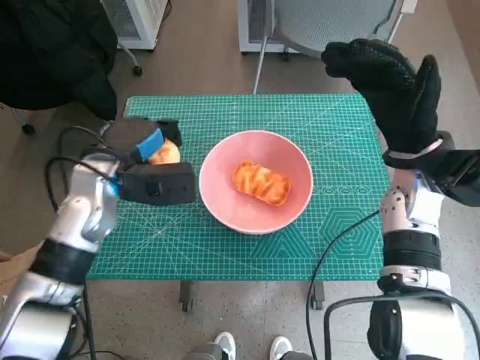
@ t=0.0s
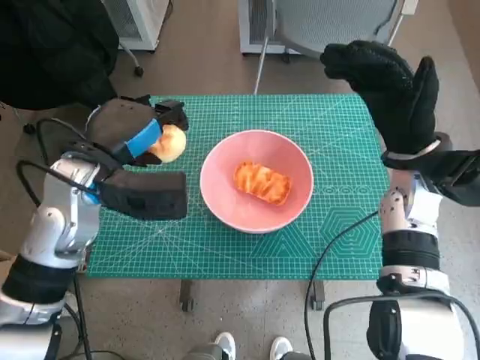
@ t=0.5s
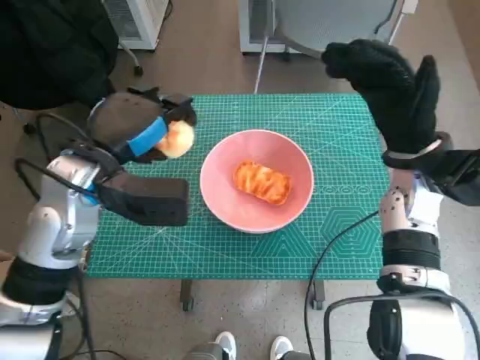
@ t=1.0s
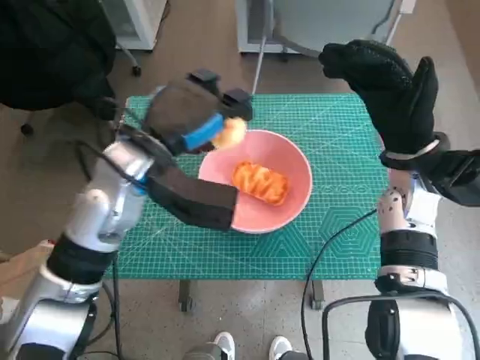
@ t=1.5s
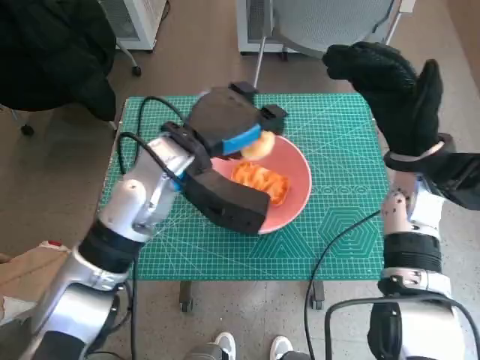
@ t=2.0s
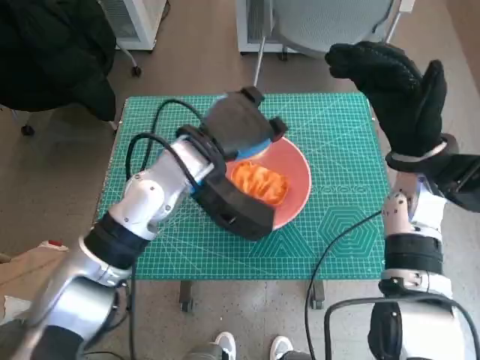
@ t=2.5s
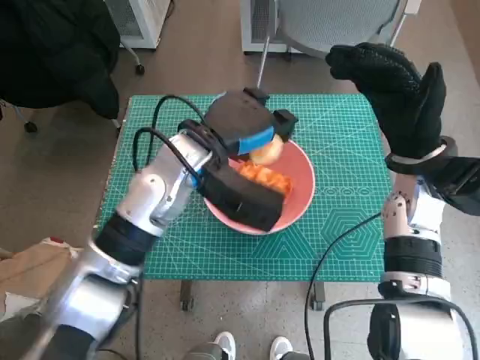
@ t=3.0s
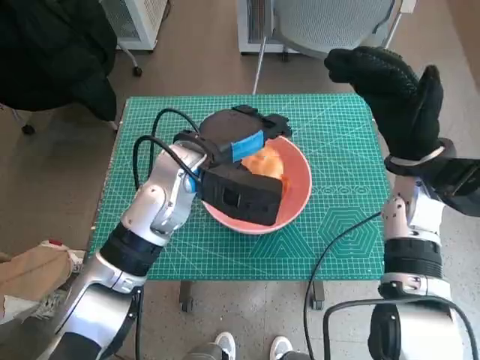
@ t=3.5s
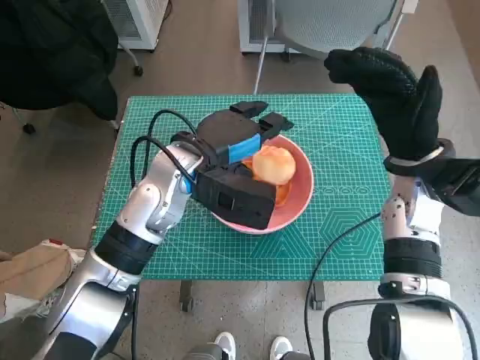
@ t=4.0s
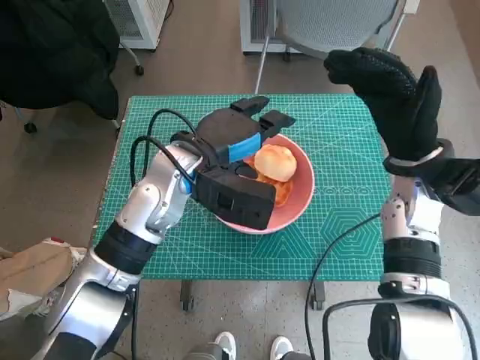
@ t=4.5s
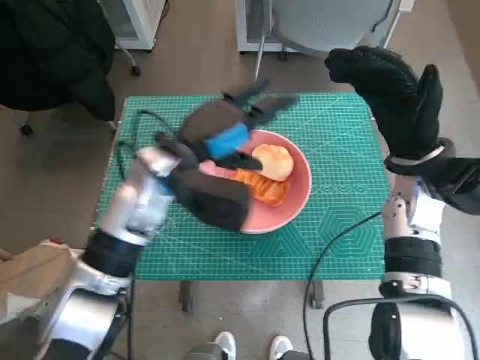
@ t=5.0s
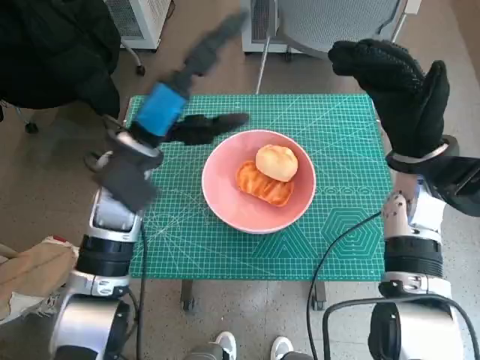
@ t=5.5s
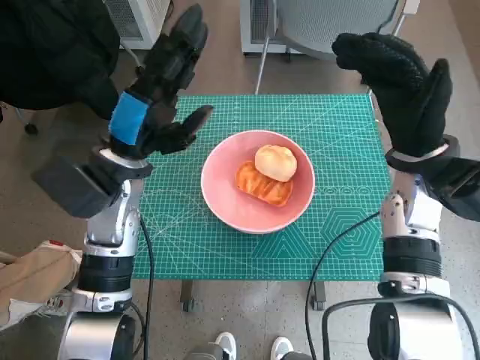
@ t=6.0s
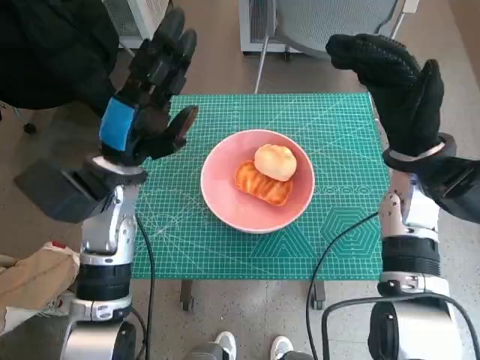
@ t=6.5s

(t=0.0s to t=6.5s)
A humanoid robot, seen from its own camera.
Step, t=0.0s - t=4.5s: Place the round bread in pink bowl with left hand.
t=0.0s - t=2.0s: The left hand shifts approximately 10 cm to the right and upward.
t=4.5s - t=6.5s: The left hand is displaced to the left by roughly 10 cm.

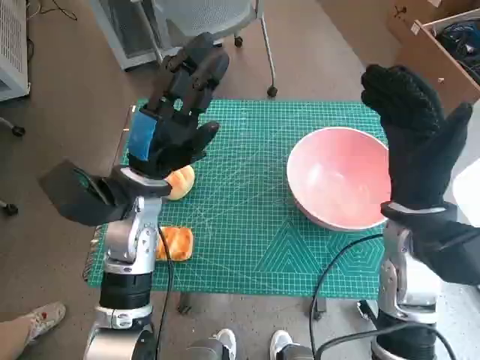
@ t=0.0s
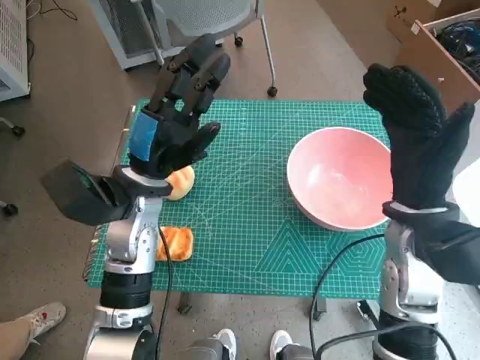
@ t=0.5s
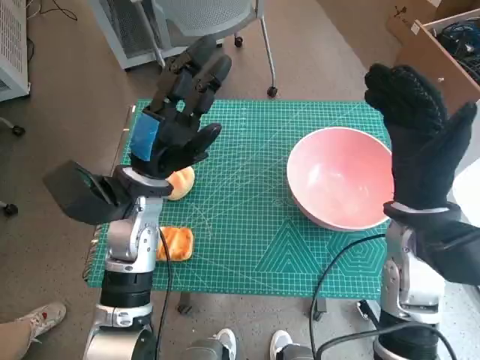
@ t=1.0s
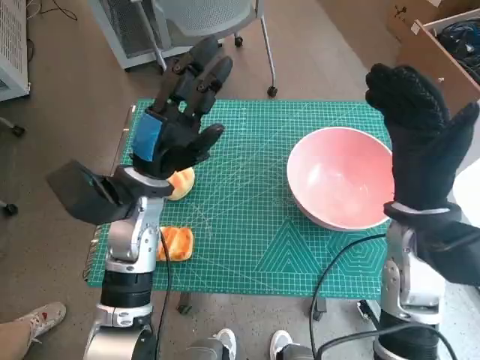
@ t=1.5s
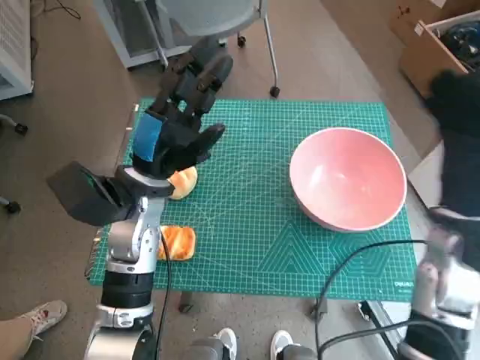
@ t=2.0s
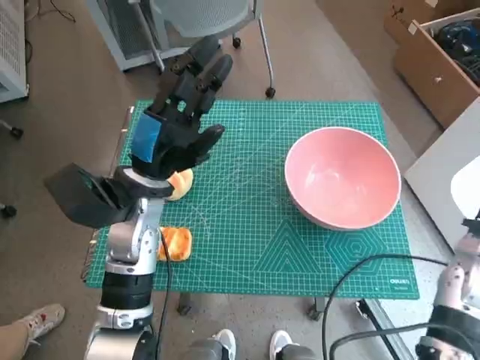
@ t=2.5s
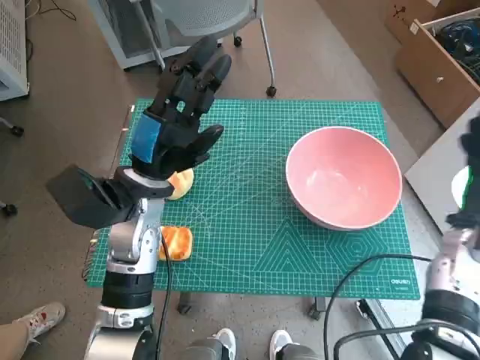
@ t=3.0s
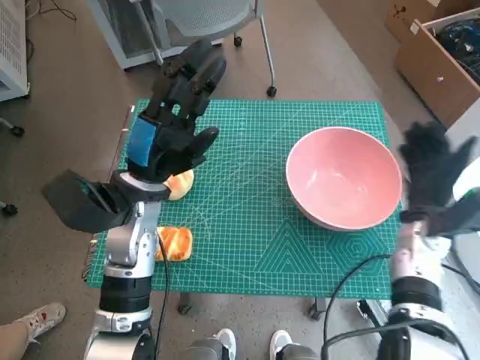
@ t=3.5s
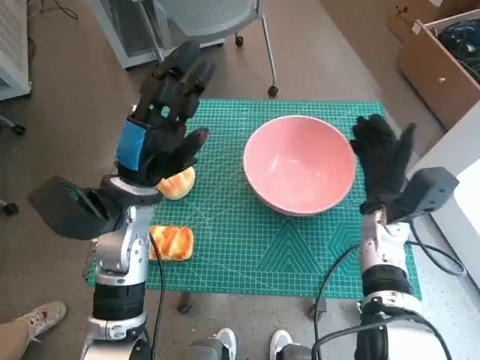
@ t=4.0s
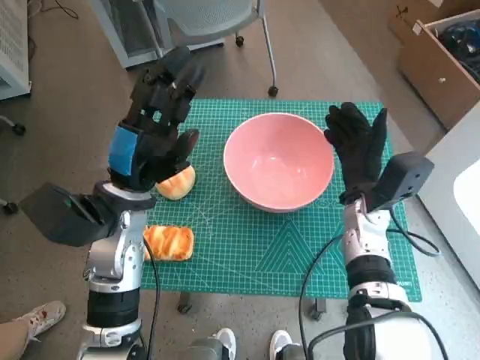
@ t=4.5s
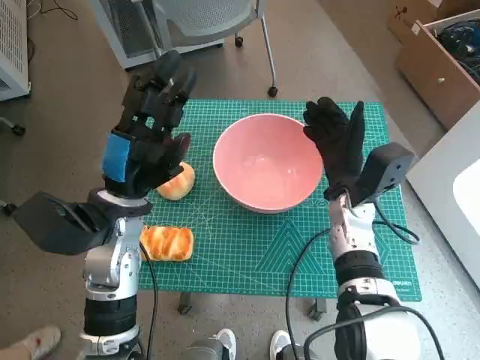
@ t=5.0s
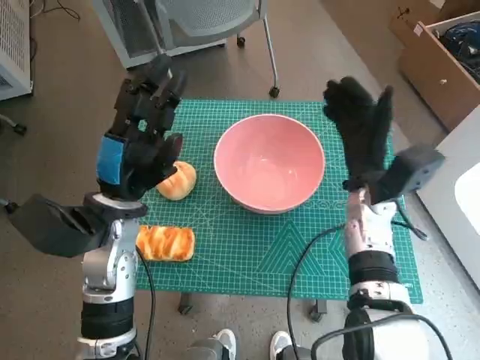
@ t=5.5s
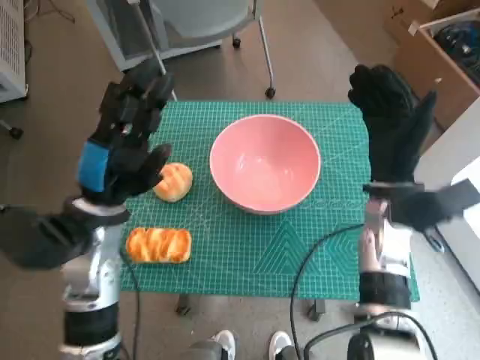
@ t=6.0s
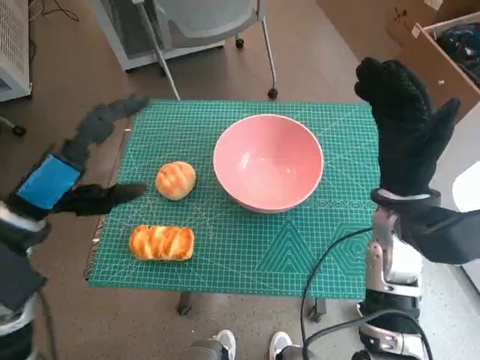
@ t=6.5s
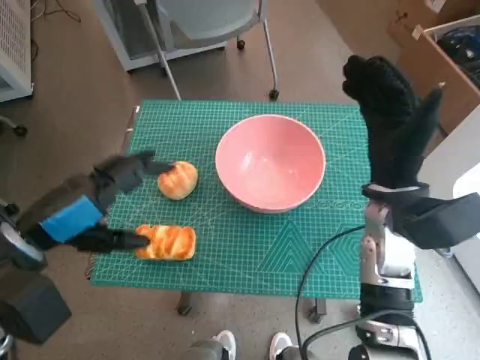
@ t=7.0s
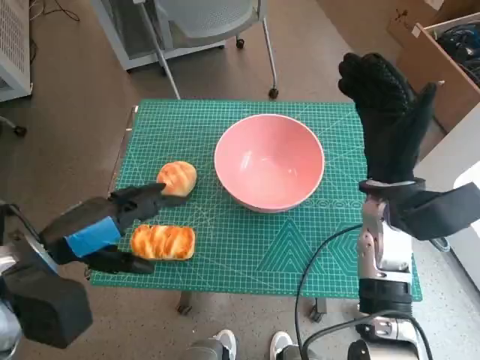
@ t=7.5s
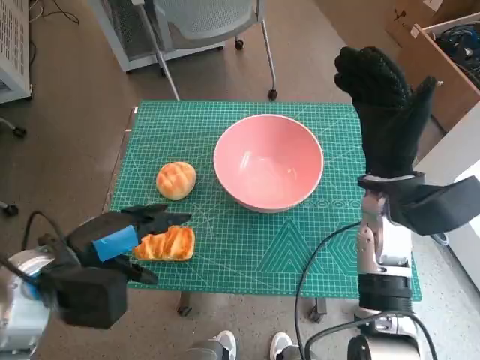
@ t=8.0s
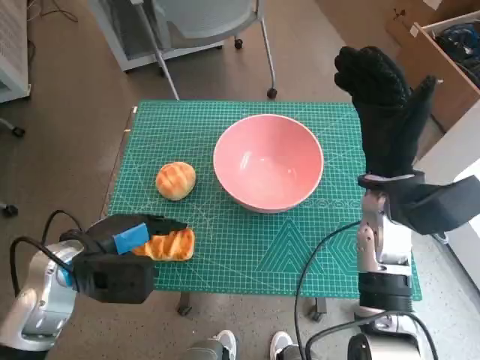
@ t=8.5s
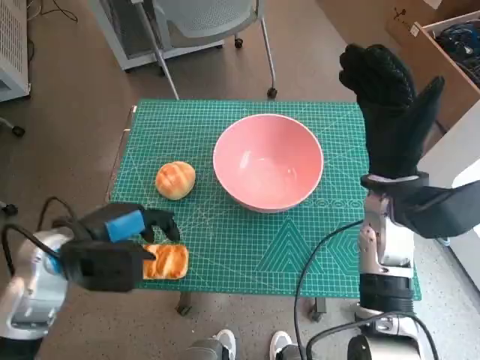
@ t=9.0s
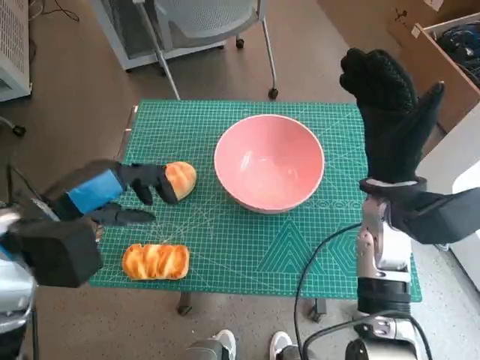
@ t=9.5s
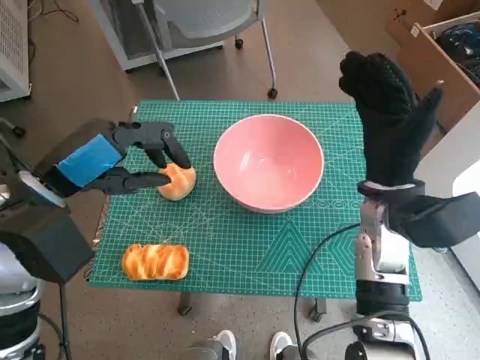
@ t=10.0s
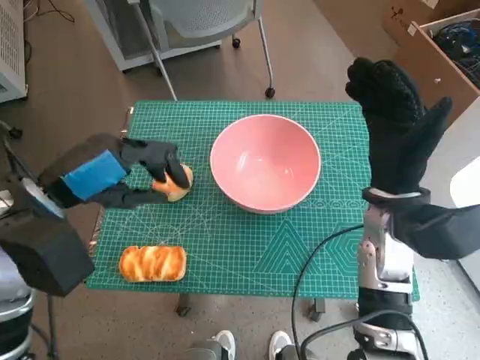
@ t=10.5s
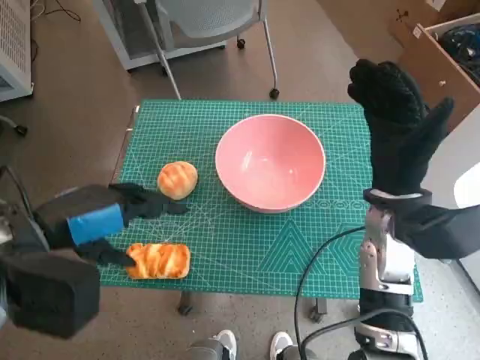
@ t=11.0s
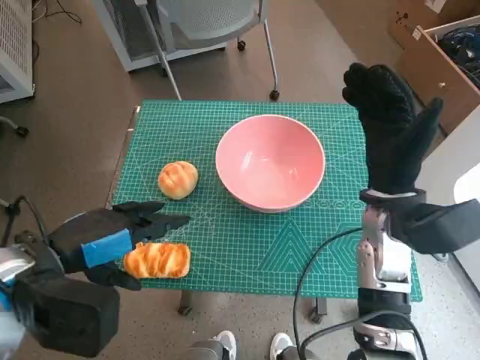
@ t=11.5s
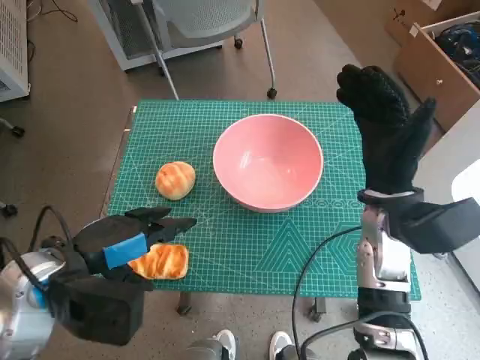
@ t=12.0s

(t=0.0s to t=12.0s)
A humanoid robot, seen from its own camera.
Step, t=0.0s - t=5.0s: Move the pink bowl to the center of table with right hand.
t=2.0s - t=4.0s: The right hand moves downward and forward, approximately 10 cm.
t=4.0s - t=6.0s: The right hand is displaced upward by roughly 5 cm.
t=6.0s - t=8.0s: The left hand moves backward, approximately 5 cm.
t=8.0s - t=10.0s: The left hand shifts roughly 10 cm upward.
t=10.0s - t=12.0s: The left hand moves downward, about 5 cm.

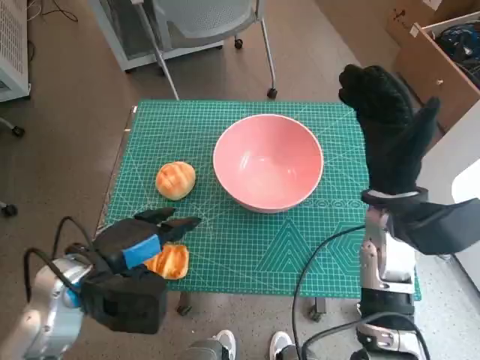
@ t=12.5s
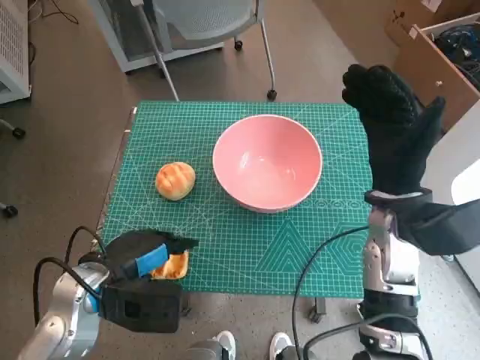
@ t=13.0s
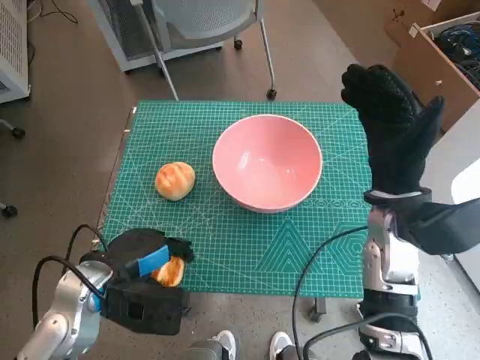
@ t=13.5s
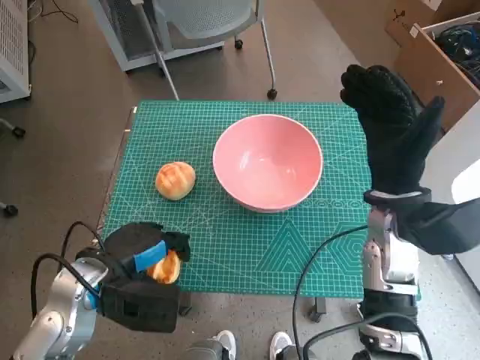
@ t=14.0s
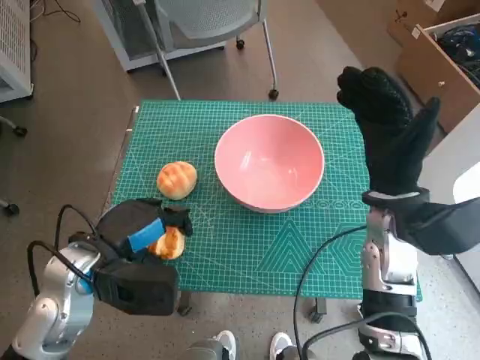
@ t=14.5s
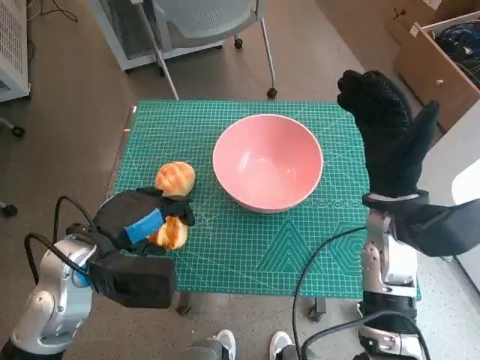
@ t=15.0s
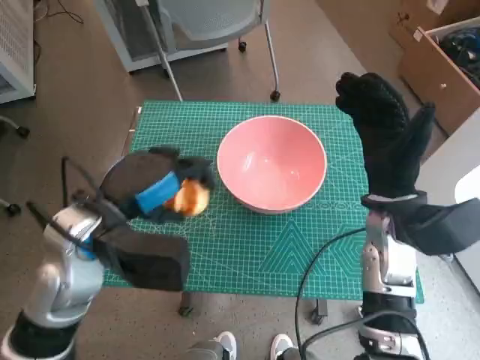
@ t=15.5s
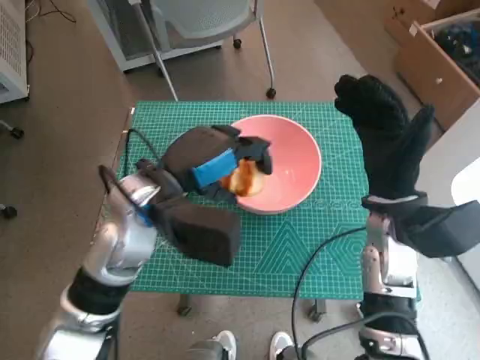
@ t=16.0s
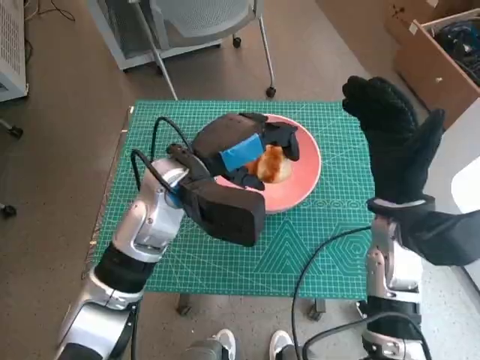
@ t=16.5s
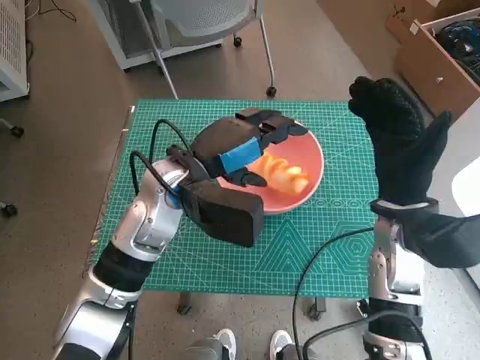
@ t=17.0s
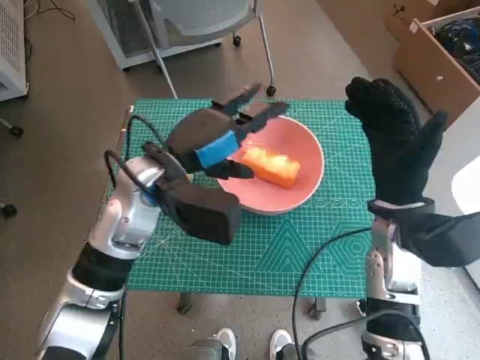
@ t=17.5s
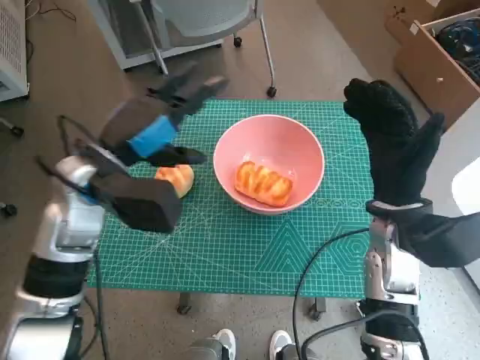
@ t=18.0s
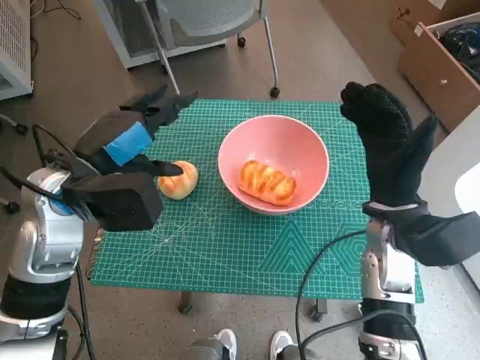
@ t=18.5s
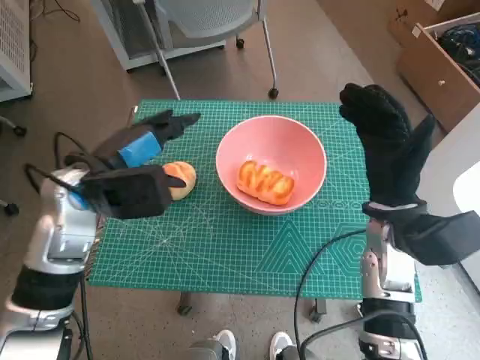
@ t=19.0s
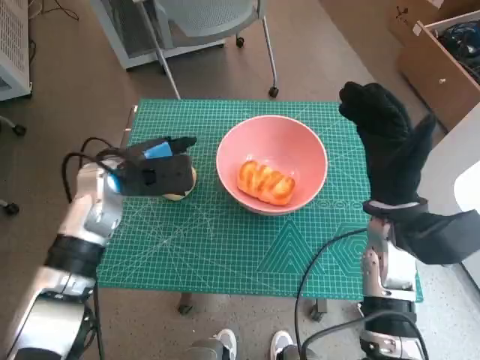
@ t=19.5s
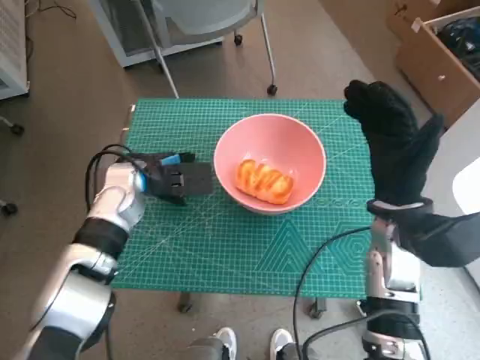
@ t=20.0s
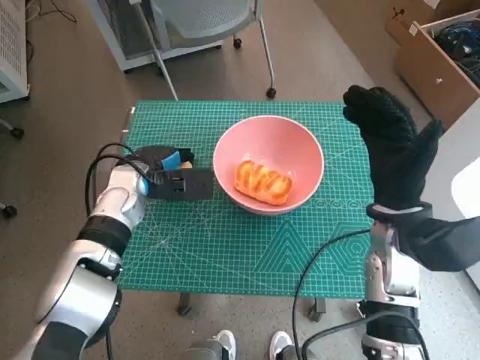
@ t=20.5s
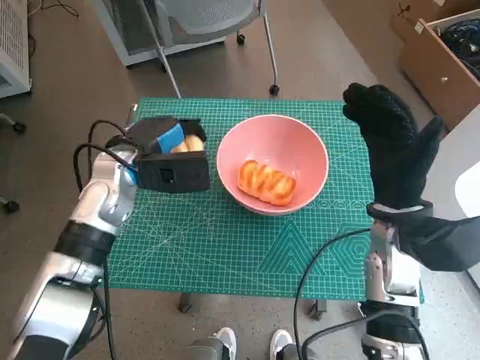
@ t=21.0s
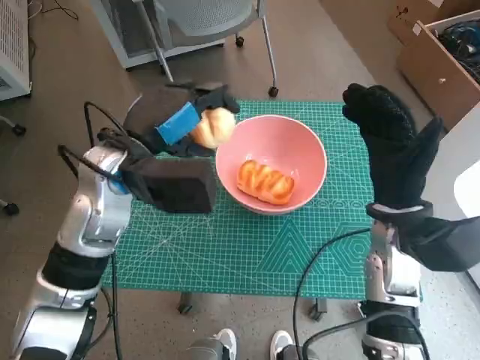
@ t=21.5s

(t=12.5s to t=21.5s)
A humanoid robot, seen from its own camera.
Step, t=13.5s - t=17.0s: Place the long bread in pink bowl with left hand.
Step, t=17.5s - t=20.0s: Grasp the round bread with left hand.
t=12.5s - t=14.5s: The hands make only small movements.
t=14.5s - t=17.0s: The left hand goes roughly 15 cm to the right and forward.
t=17.0s - t=19.5s: The left hand is displaced to the left by roughly 10 cm.
t=19.5s - t=21.5s: The left hand moves upward, approximately 5 cm.
